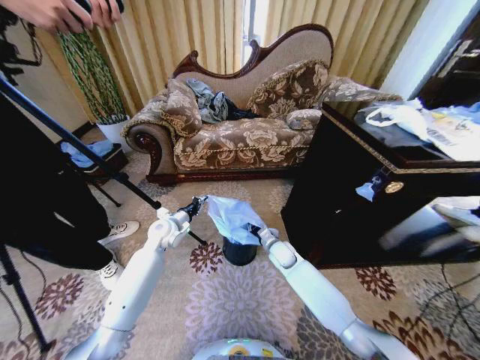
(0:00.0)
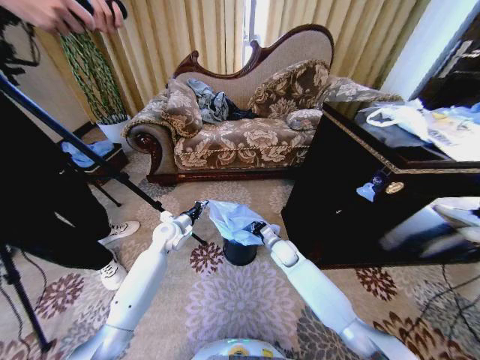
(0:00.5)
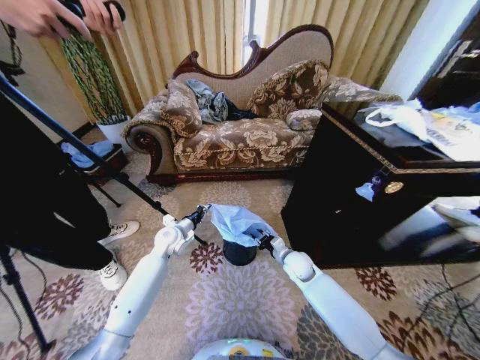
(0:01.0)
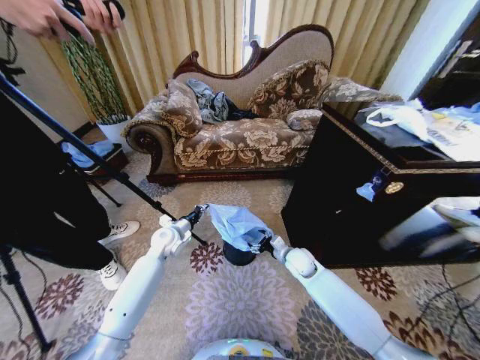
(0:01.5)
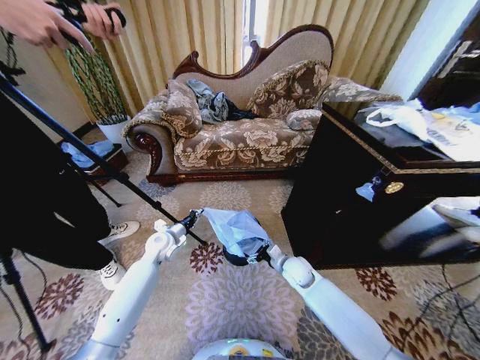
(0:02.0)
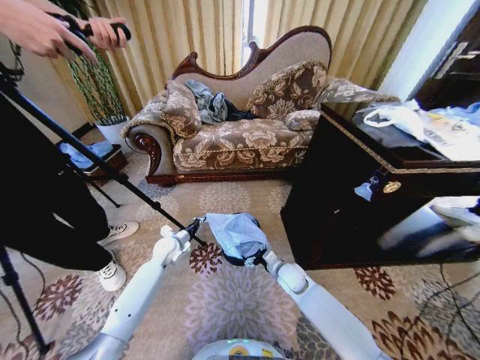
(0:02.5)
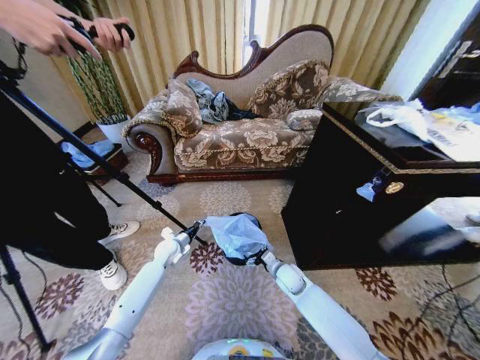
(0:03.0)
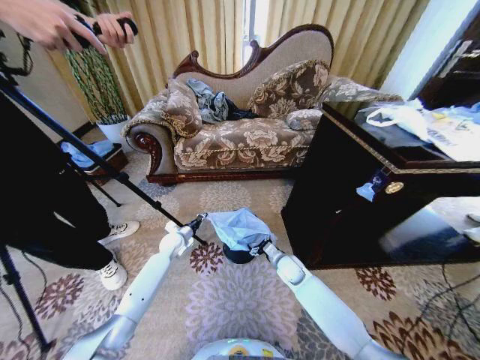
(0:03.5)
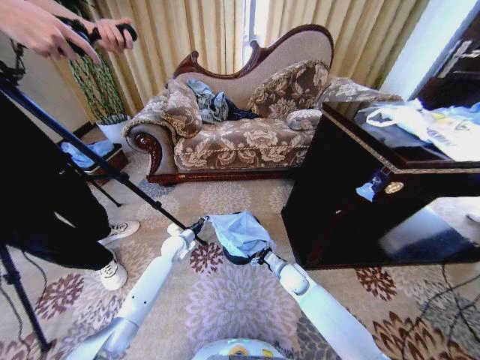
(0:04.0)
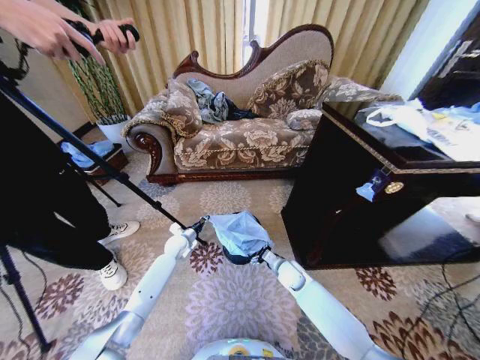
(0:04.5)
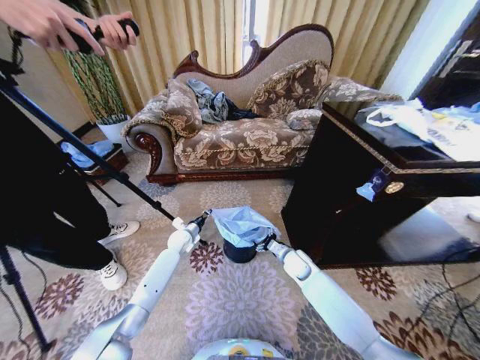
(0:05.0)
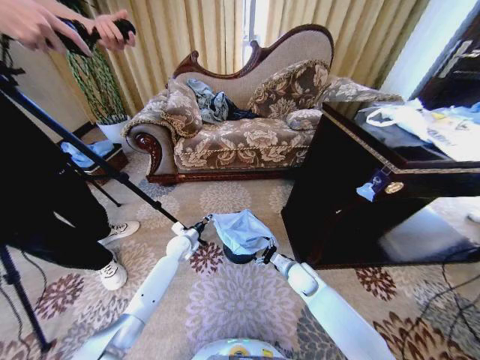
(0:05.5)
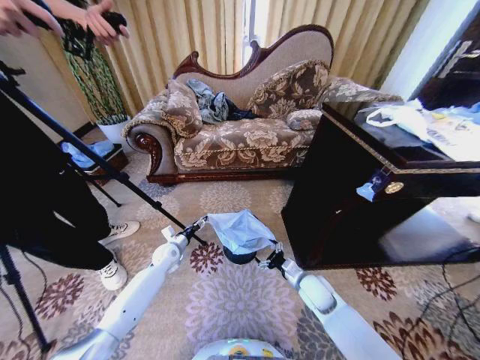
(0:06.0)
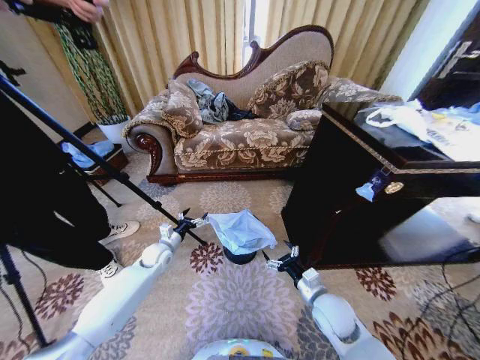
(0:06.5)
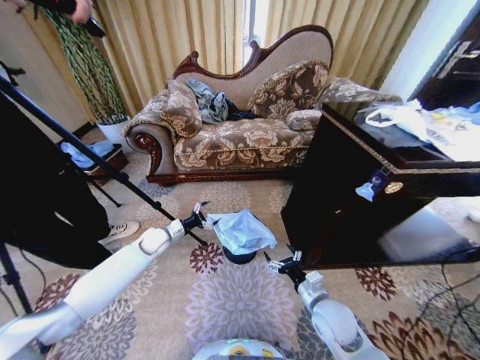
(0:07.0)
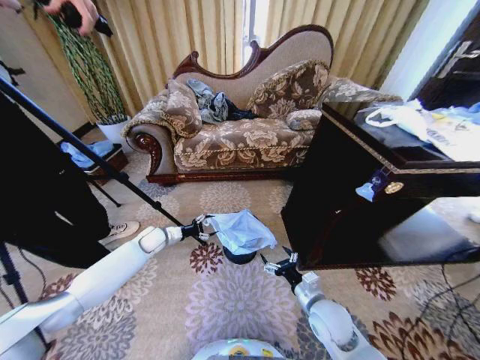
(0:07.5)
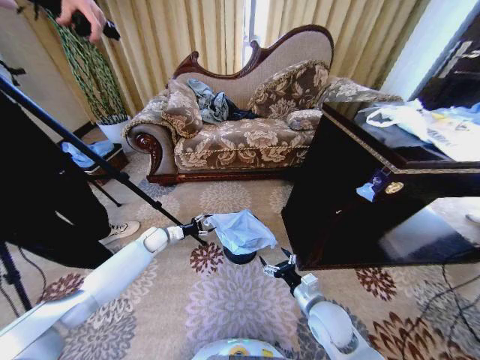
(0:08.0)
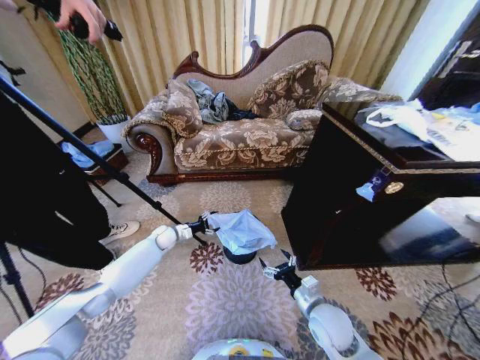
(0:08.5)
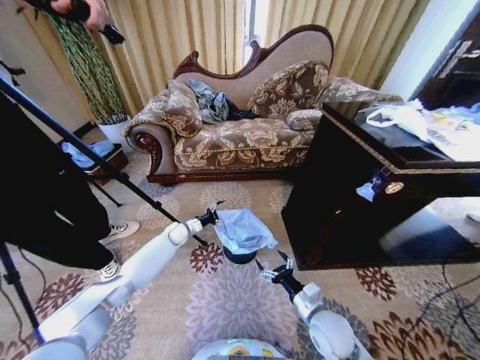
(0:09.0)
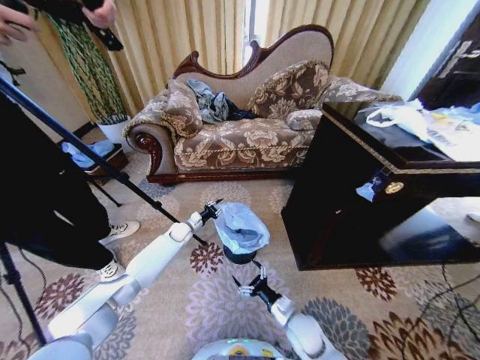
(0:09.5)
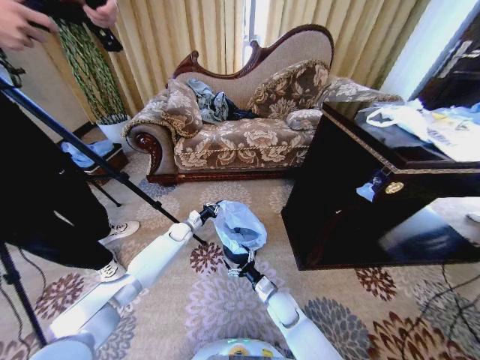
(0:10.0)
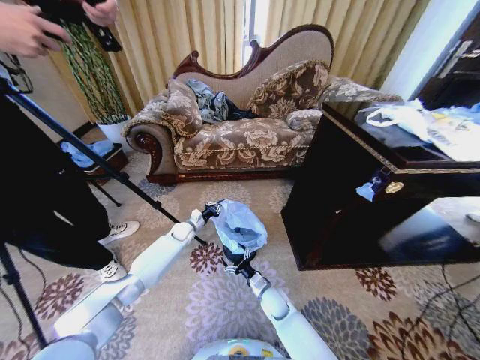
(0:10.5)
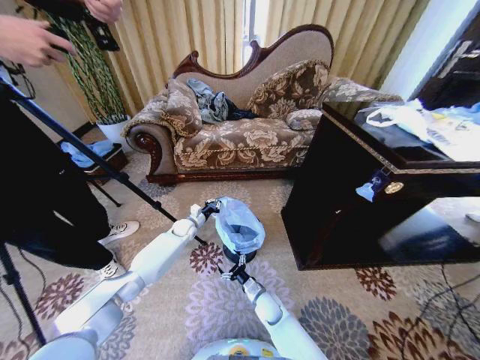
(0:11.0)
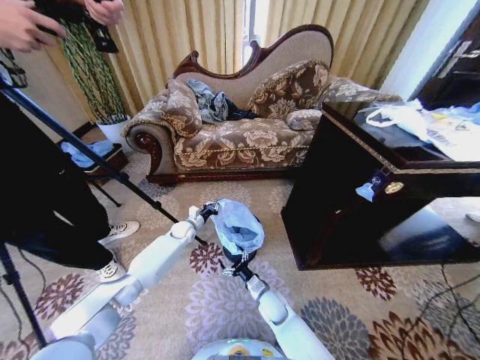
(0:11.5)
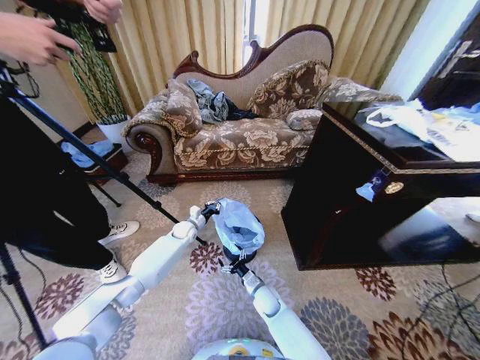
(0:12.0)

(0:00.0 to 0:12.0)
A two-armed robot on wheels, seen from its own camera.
Task of the whole recording: Place a garbage bag over the trash bin.
0:00.0 - 0:02.0: The right gripper heads backward, covering about 5 cm, and opens, while the left gripper ends up about 5 cm from where it was.
0:02.0 - 0:04.0: The left gripper is displaced downward by some 10 cm.
0:04.0 - 0:06.0: The right gripper travels backward by about 5 cm; the left gripper opens its fingers.
0:06.0 - 0:08.0: The right gripper travels backward by some 10 cm. The left gripper heads to the left and forward, covering roughly 10 cm, and opens, then closes once more.
0:08.0 - 0:10.0: The right gripper travels downward, to the left and forward by about 15 cm, while the left gripper shifts roughly 10 cm to the right and forward, and closes its fingers.
0:10.0 - 0:12.0: The right gripper ends up approximately 5 cm from where it was.

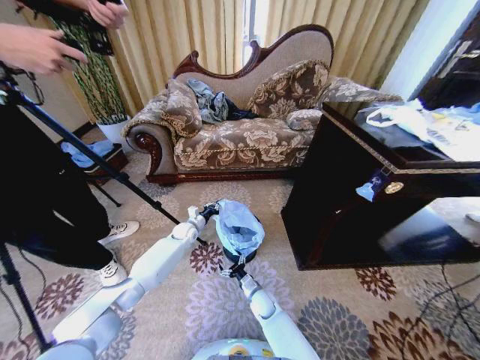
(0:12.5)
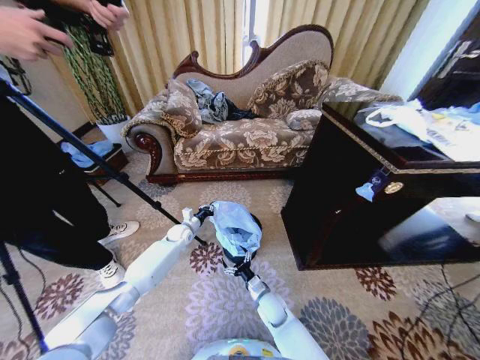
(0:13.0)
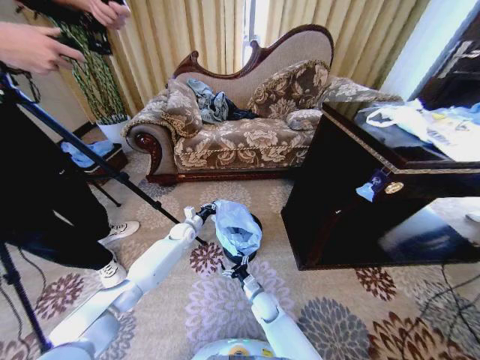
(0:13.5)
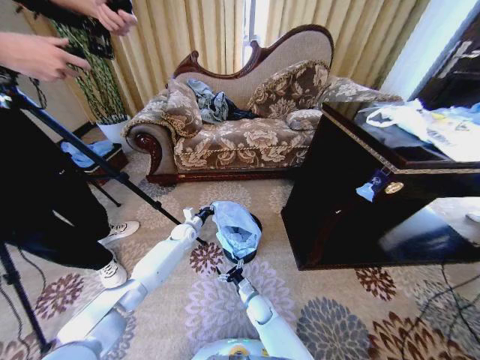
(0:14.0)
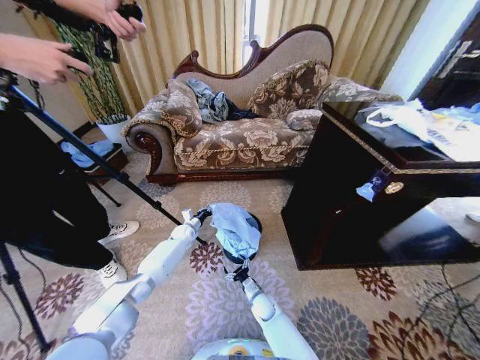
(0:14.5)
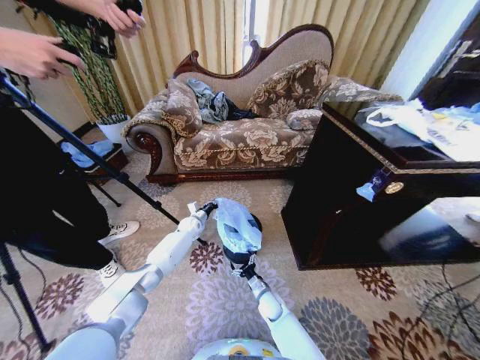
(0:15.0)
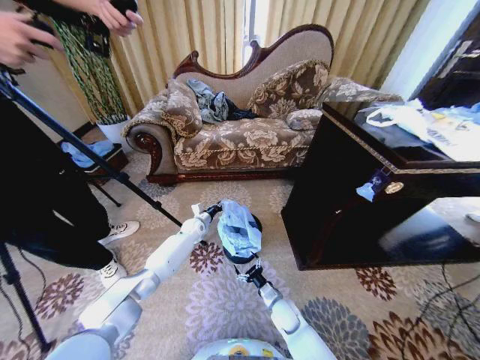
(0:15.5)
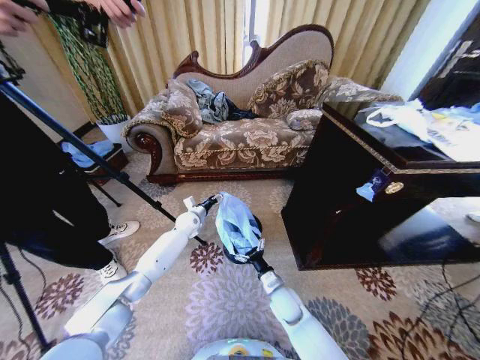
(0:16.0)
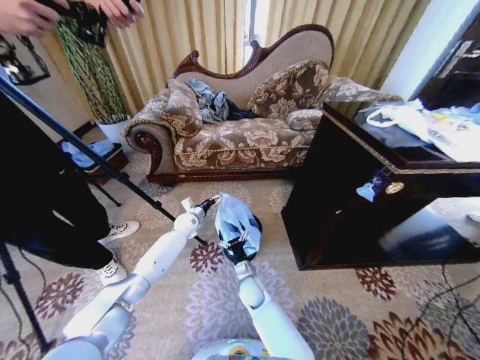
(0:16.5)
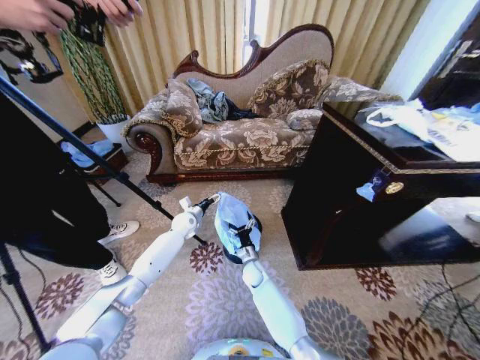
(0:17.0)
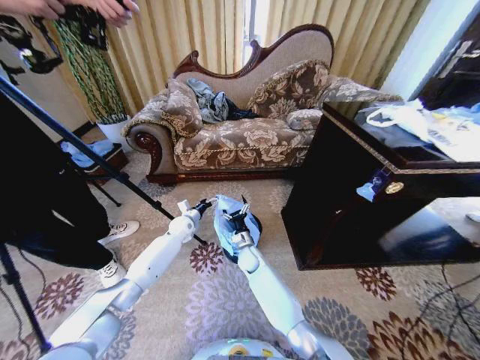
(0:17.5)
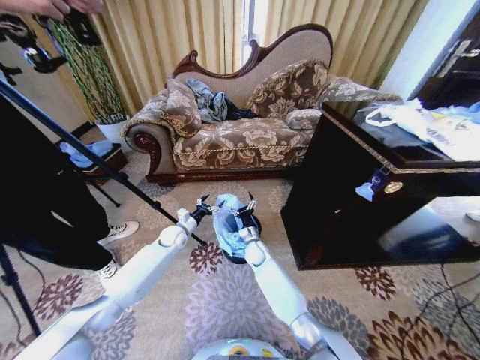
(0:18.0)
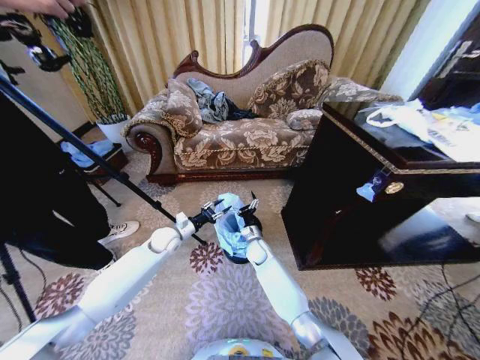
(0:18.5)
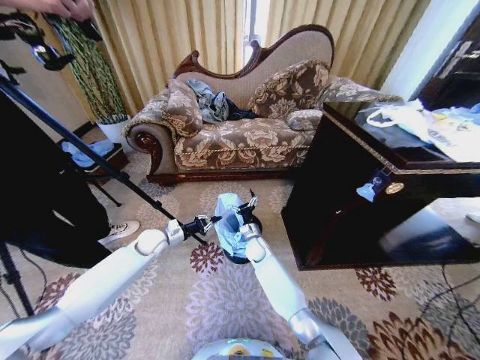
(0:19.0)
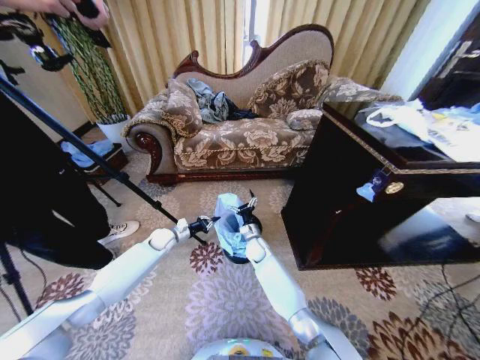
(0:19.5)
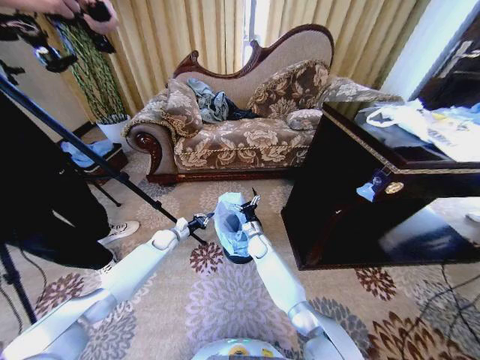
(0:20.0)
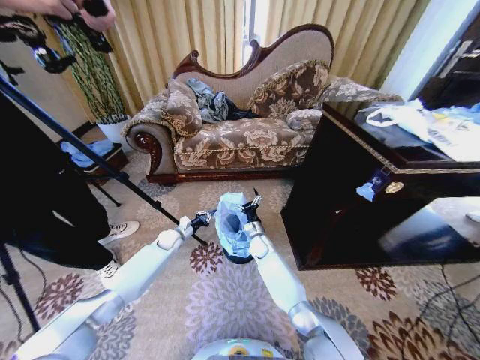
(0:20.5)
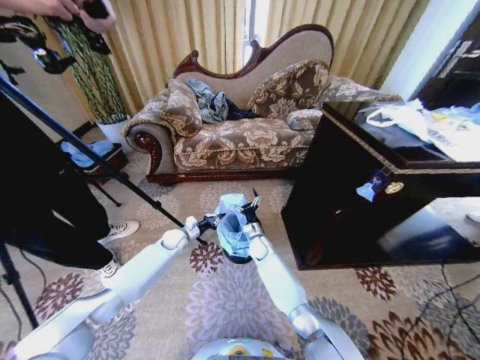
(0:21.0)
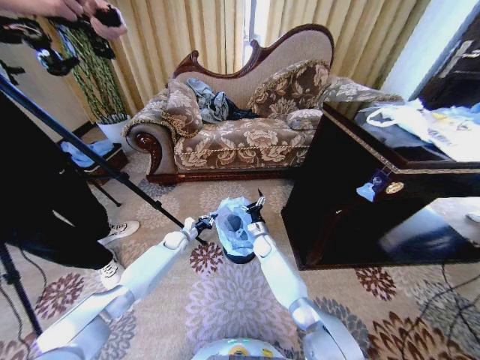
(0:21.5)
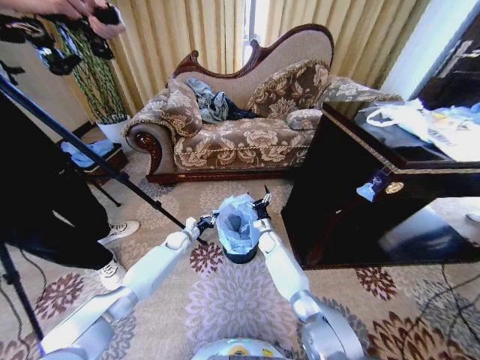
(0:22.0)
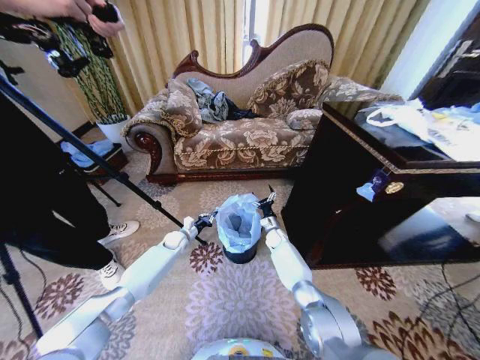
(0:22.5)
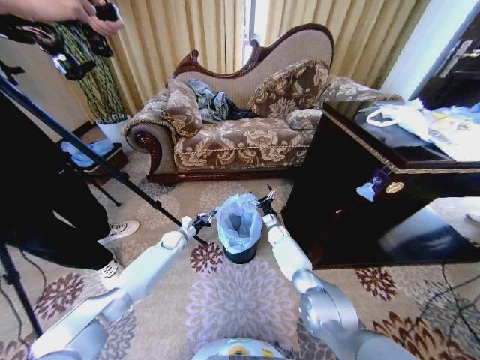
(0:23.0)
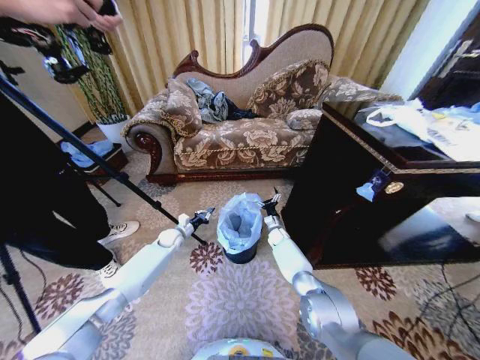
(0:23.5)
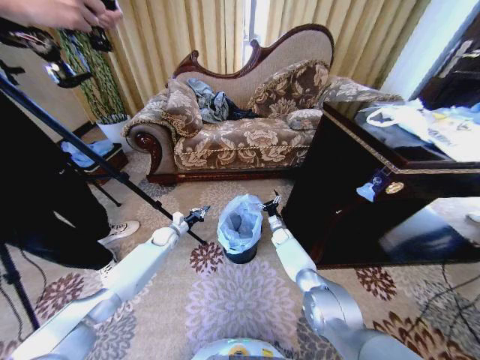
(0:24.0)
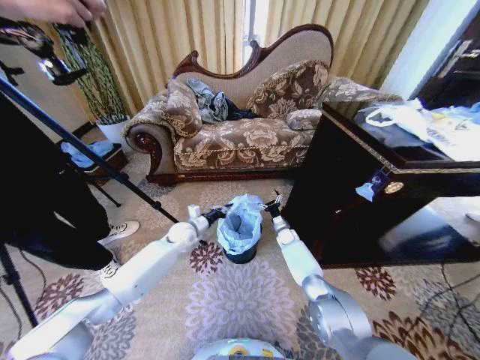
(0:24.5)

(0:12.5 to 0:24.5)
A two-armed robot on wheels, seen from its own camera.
Task of the whole recording: Place a garbage bag over the trash bin.
0:12.5 - 0:14.5: There are only small adjustments of the grippers.
0:14.5 - 0:16.5: The right gripper moves upward and to the left, about 10 cm. Meanwhile the left gripper moves upward, about 10 cm, and opens up.
0:16.5 - 0:18.5: The left gripper is displaced backward by about 10 cm, and closes its fingers; the right gripper travels forward by approximately 15 cm.
0:18.5 - 0:20.5: The left gripper moves downward and forward, roughly 10 cm, and closes its fingers.
0:20.5 - 0:22.5: The right gripper travels to the right and forward by about 10 cm.
0:22.5 - 0:24.5: The right gripper travels to the right by some 5 cm. Meanwhile the left gripper moves upward and to the right, about 10 cm.

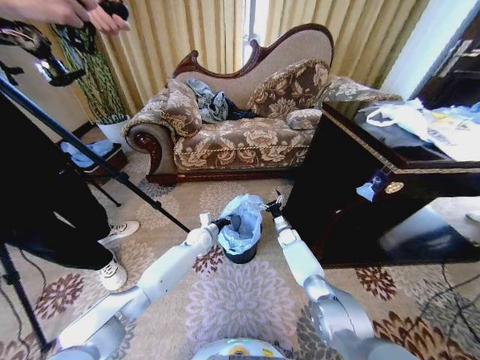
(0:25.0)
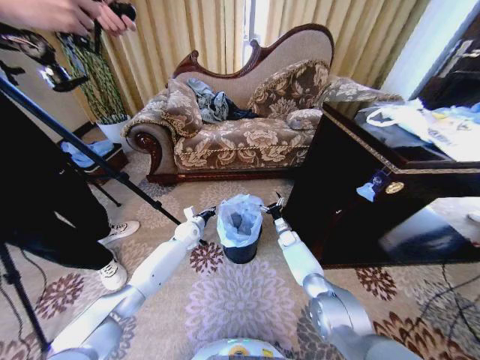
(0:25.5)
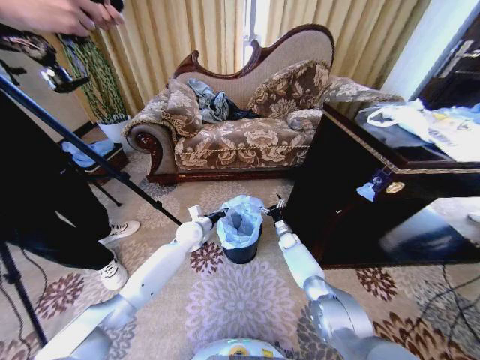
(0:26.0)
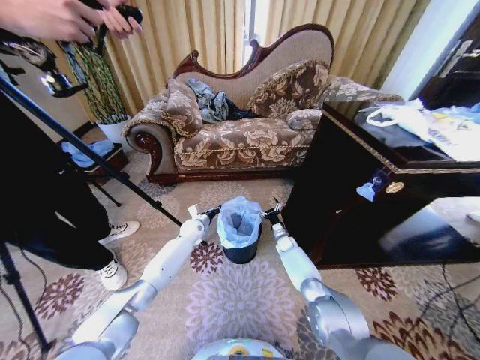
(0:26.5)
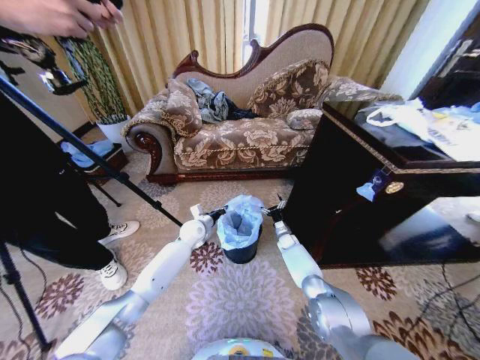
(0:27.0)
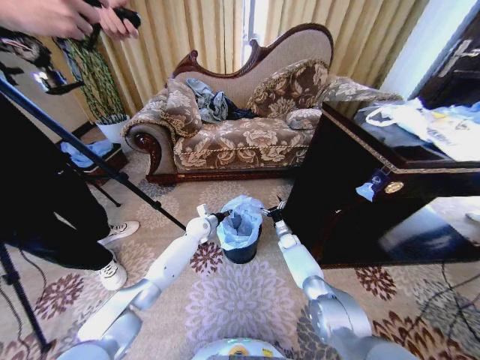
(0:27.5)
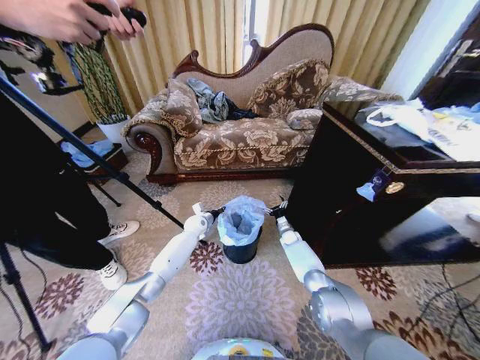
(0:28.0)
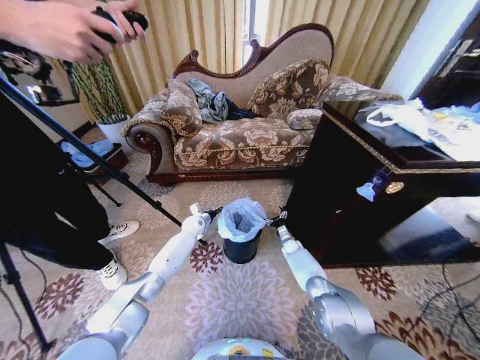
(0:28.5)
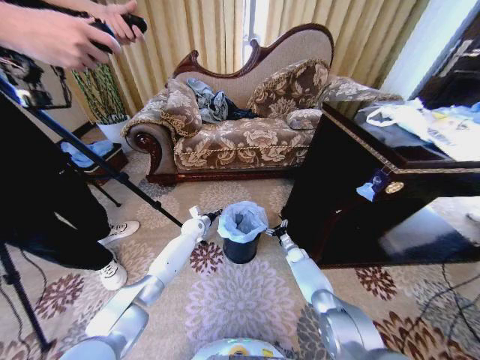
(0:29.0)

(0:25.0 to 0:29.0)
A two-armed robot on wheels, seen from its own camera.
Task of the whole recording: Place a garbage bag over the trash bin.
0:27.0 - 0:29.0: The left gripper heads forward and downward, covering roughly 10 cm. The right gripper ends up about 5 cm from where it was.
